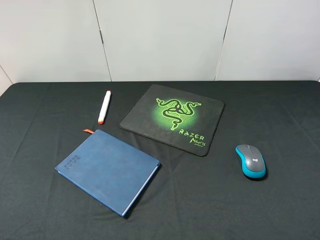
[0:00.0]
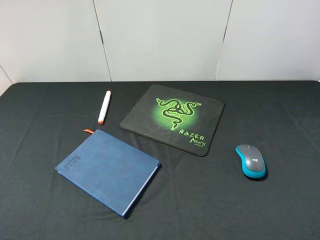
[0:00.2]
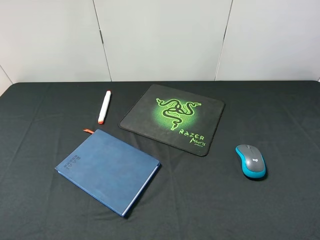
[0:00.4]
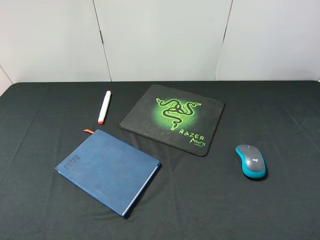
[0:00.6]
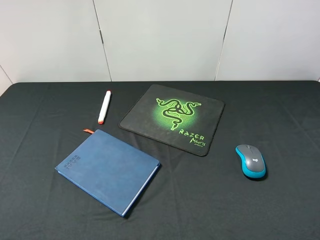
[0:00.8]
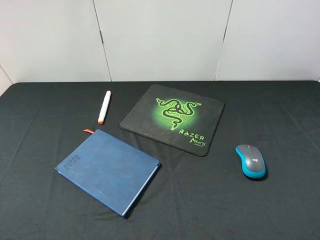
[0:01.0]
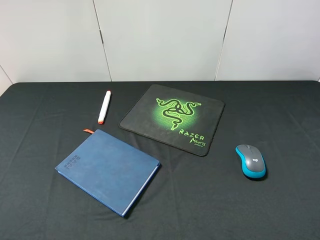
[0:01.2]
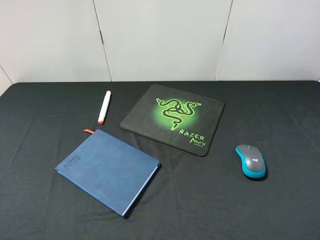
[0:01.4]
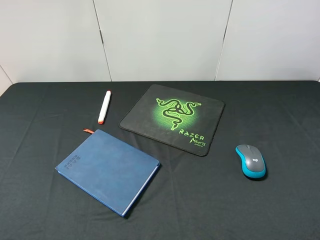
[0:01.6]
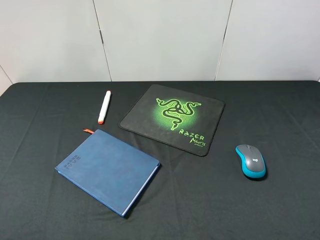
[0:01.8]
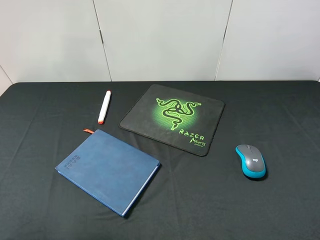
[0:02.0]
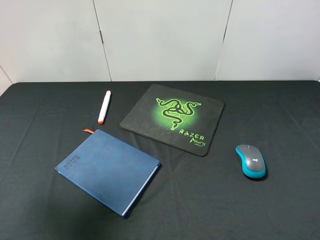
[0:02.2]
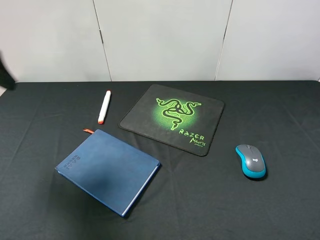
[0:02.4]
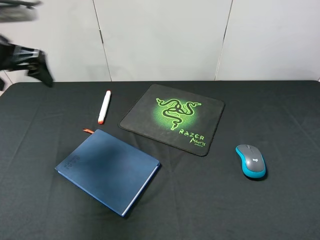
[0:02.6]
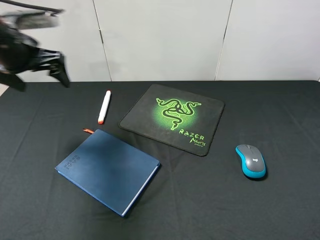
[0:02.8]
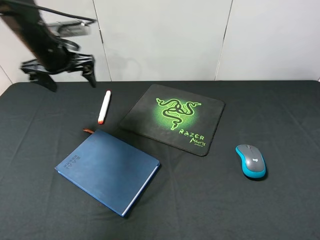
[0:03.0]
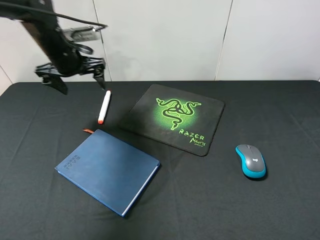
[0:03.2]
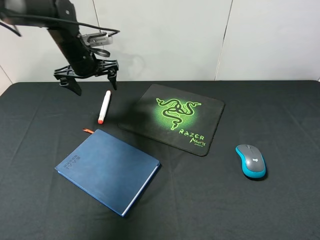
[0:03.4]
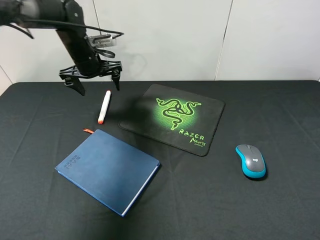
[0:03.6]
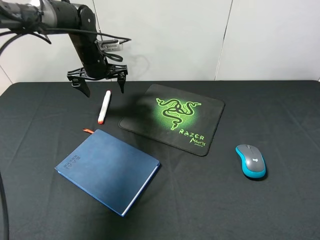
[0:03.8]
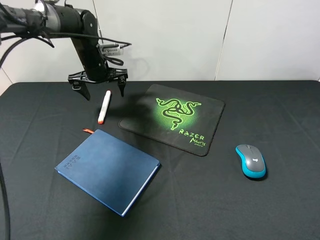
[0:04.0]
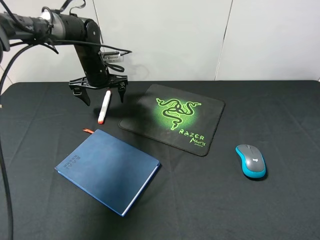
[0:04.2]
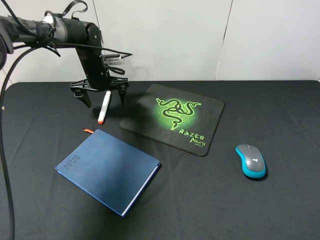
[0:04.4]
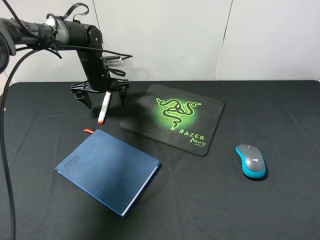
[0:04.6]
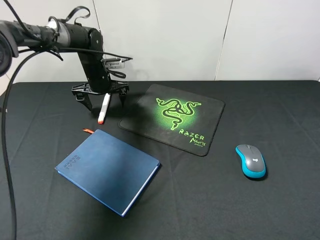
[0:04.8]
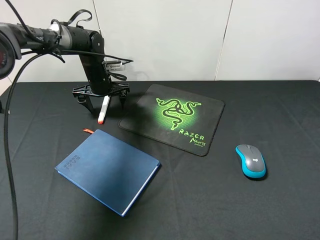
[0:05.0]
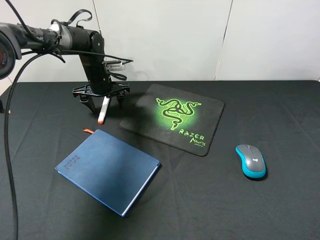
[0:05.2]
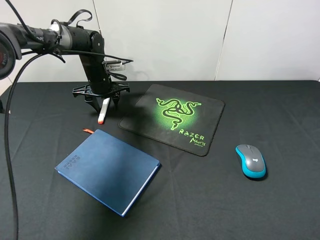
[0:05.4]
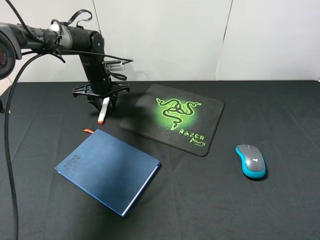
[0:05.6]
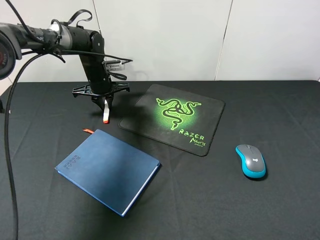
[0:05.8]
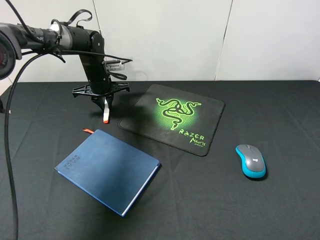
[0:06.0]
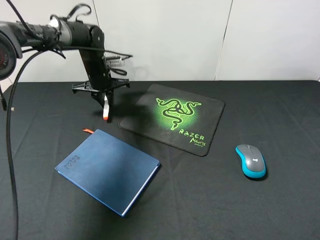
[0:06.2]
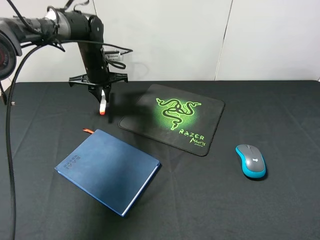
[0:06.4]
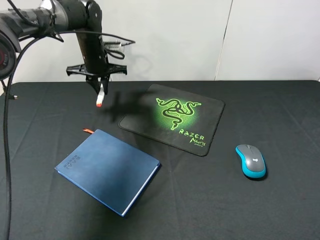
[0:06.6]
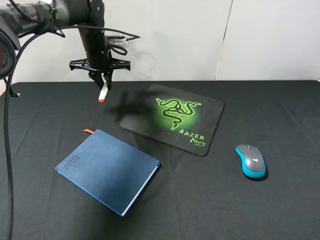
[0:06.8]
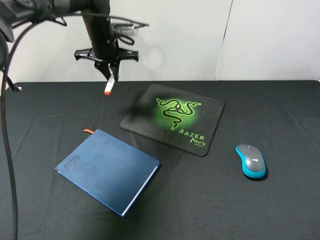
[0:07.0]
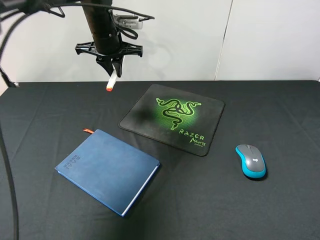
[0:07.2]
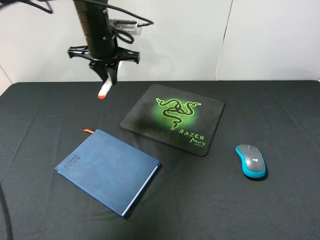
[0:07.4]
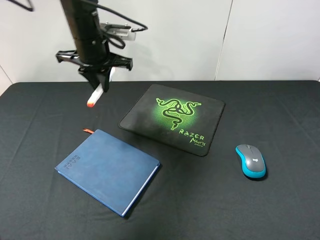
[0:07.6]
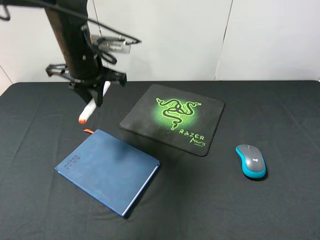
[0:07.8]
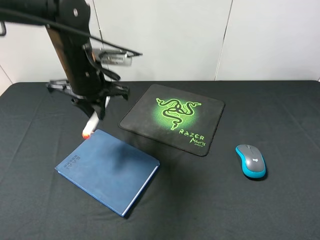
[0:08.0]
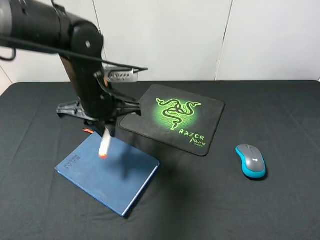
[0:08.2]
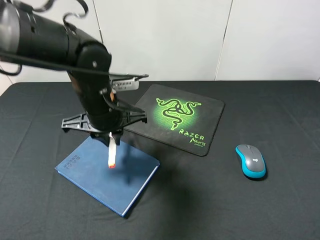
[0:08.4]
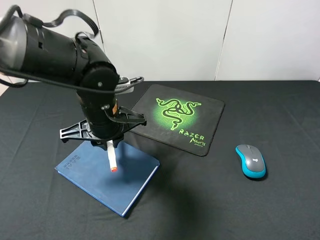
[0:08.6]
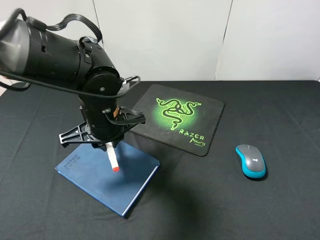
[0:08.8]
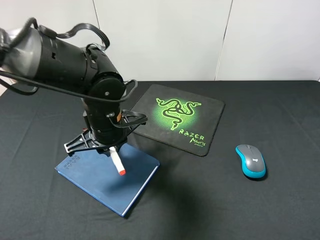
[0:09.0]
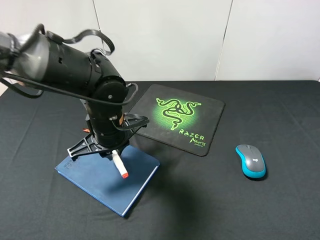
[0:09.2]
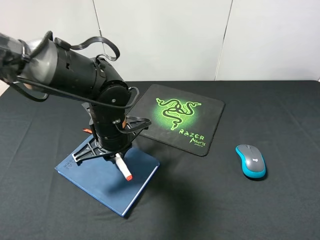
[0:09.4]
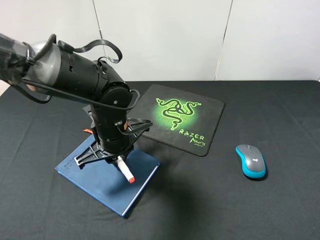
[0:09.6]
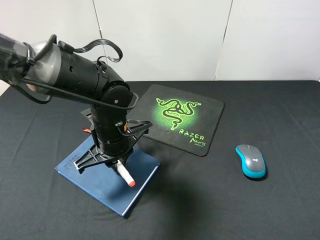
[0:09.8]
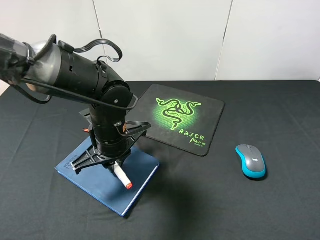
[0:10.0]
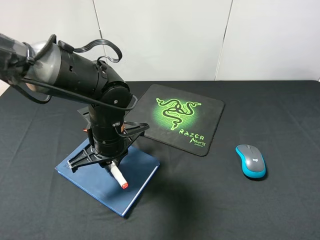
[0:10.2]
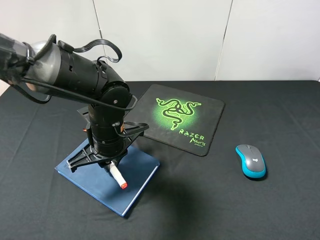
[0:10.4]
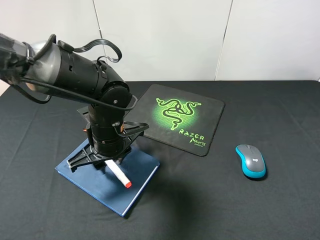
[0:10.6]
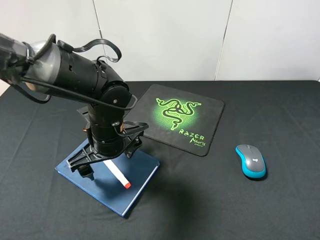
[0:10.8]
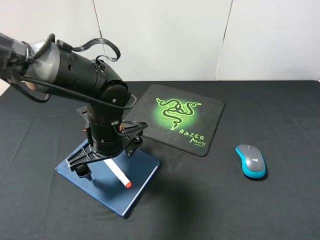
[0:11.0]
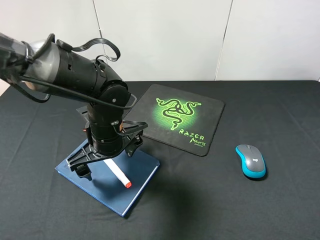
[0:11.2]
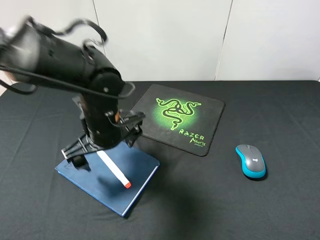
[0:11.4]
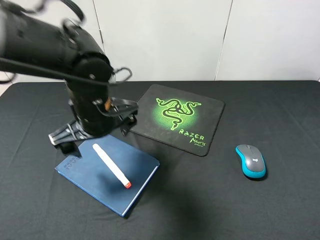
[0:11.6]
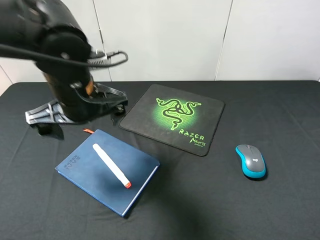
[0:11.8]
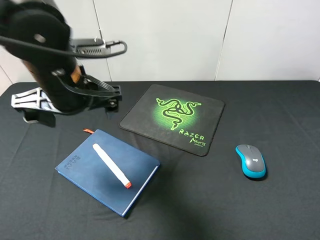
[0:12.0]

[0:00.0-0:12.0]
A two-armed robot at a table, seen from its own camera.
Step, 0:00.0 to 0:06.4: Pick up the marker pen with left gripper.
Step, 0:06.6 to 0:11.2: Place the marker pen on the notebook with left gripper.
0:01.6 to 0:03.0: The left gripper travels forward by about 40 cm.
0:03.0 to 0:04.4: The left gripper is displaced downward, forward and to the right by approximately 15 cm.
0:04.4 to 0:06.0: The left gripper closes its fingers.
0:06.0 to 0:07.6: The left gripper heads upward and backward, covering roughly 15 cm.
0:07.6 to 0:09.0: The left gripper is displaced backward, downward and to the right by roughly 15 cm.
0:09.0 to 0:10.4: The grippers move only a little.
0:10.4 to 0:12.0: The left gripper shifts some 15 cm upward, and opens up.

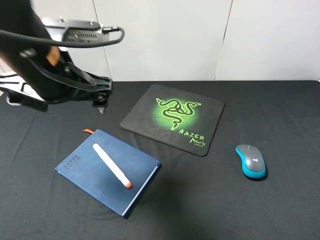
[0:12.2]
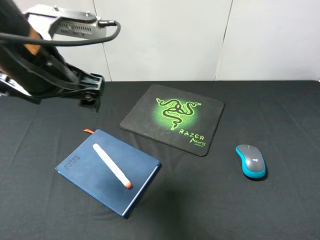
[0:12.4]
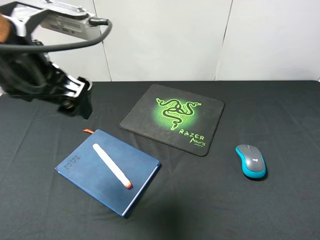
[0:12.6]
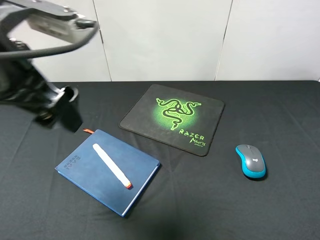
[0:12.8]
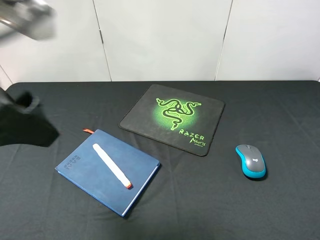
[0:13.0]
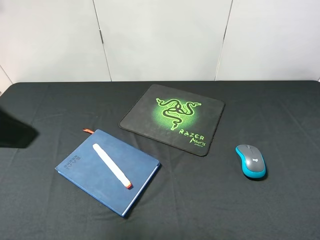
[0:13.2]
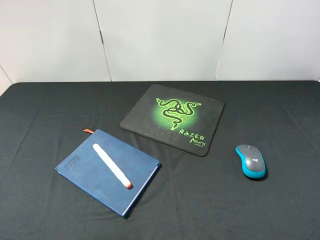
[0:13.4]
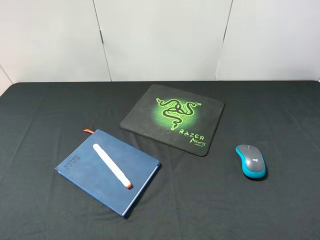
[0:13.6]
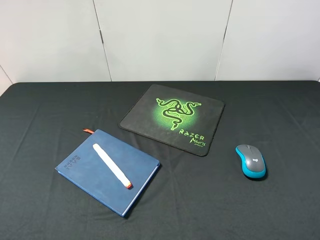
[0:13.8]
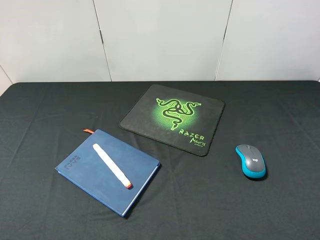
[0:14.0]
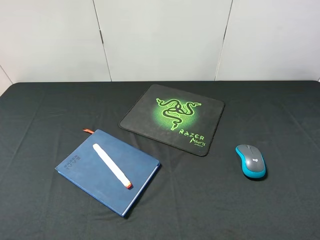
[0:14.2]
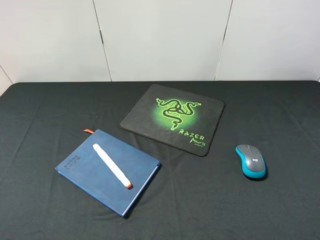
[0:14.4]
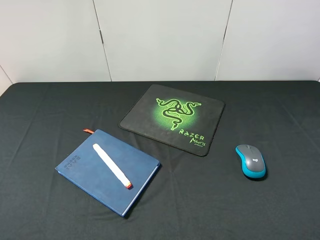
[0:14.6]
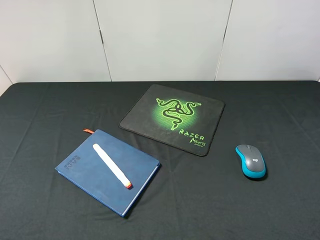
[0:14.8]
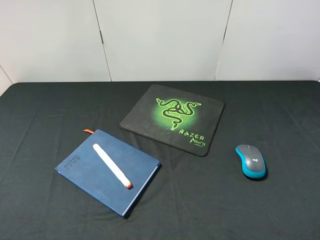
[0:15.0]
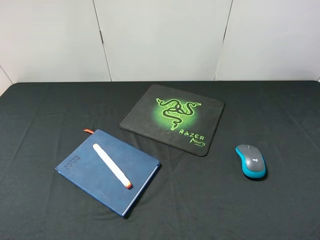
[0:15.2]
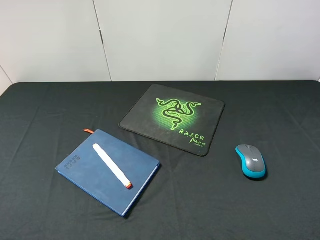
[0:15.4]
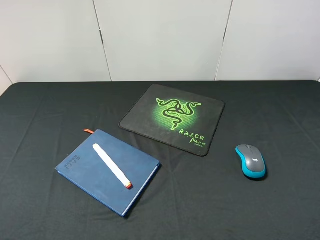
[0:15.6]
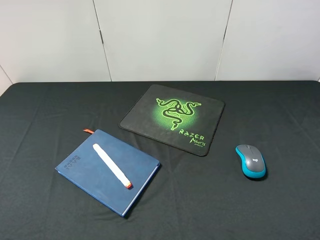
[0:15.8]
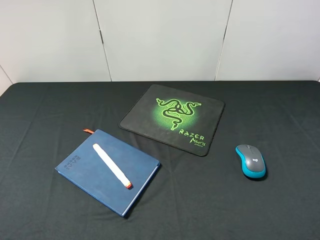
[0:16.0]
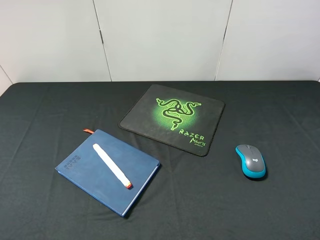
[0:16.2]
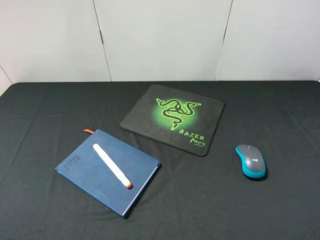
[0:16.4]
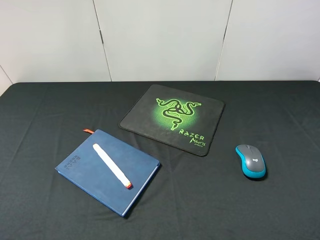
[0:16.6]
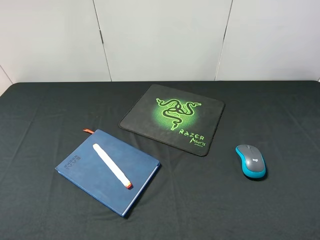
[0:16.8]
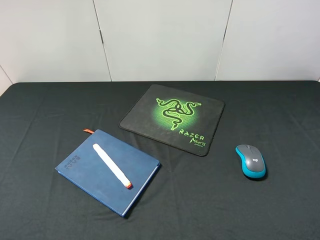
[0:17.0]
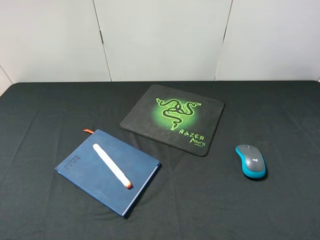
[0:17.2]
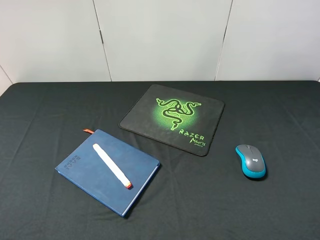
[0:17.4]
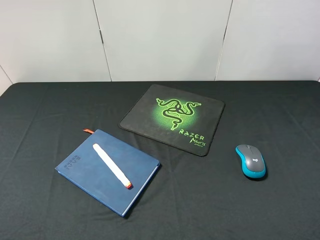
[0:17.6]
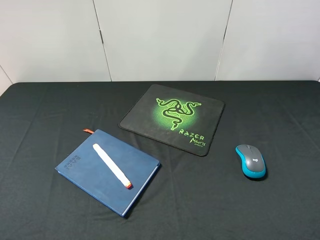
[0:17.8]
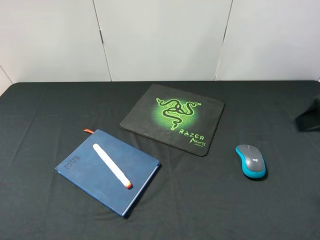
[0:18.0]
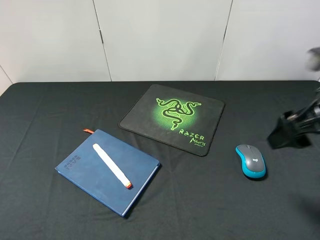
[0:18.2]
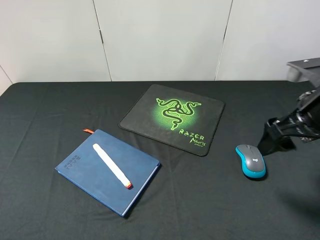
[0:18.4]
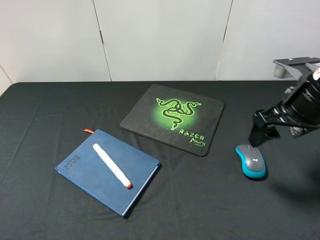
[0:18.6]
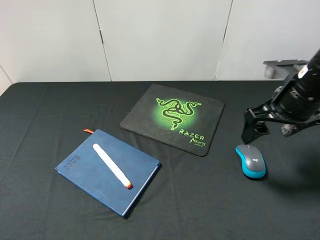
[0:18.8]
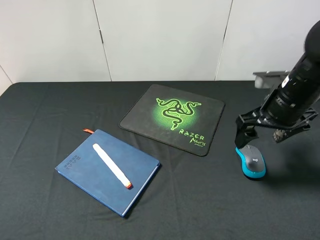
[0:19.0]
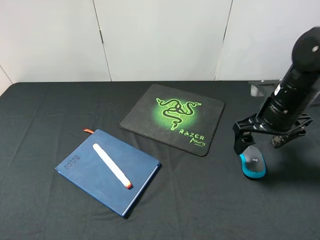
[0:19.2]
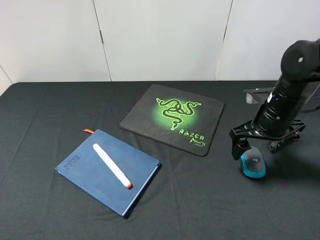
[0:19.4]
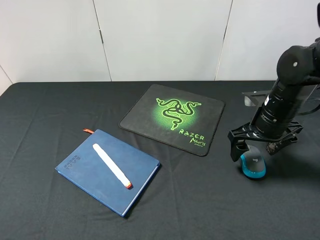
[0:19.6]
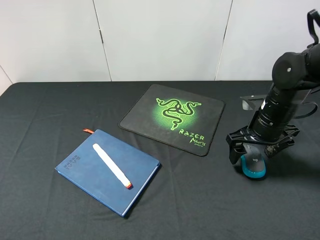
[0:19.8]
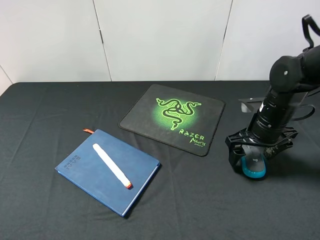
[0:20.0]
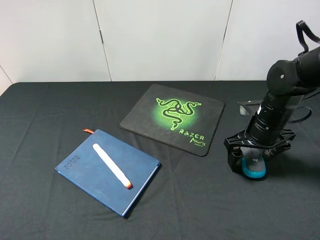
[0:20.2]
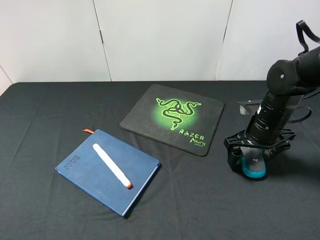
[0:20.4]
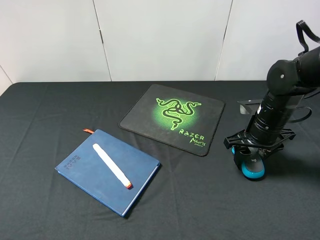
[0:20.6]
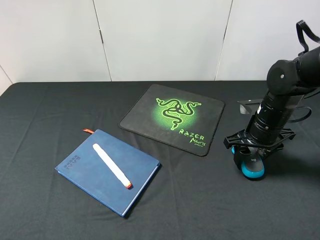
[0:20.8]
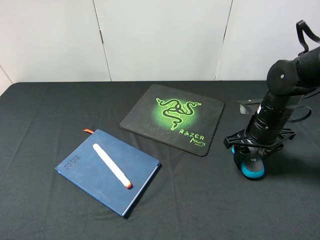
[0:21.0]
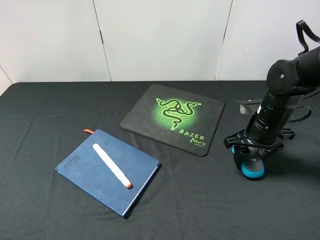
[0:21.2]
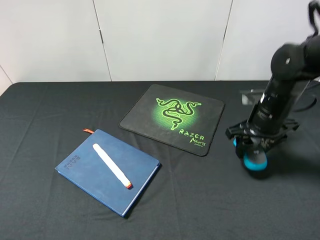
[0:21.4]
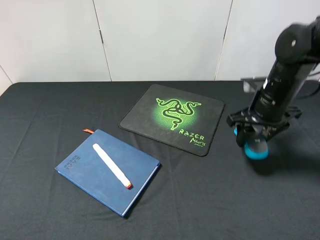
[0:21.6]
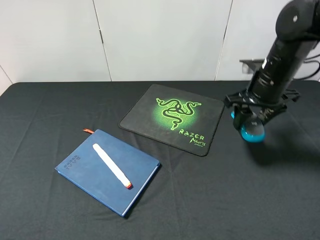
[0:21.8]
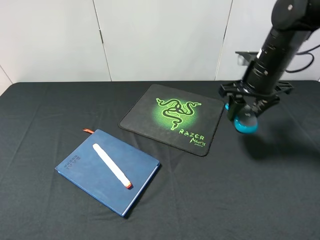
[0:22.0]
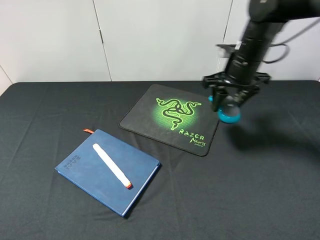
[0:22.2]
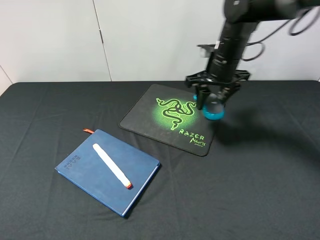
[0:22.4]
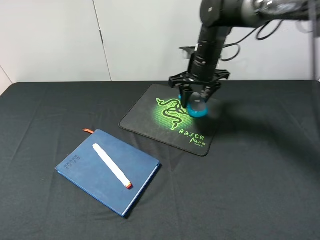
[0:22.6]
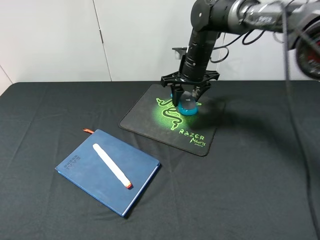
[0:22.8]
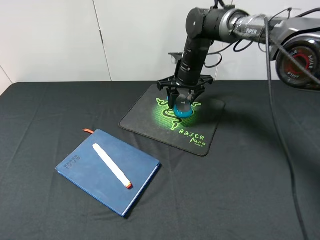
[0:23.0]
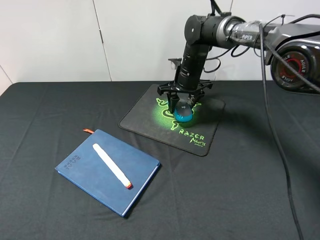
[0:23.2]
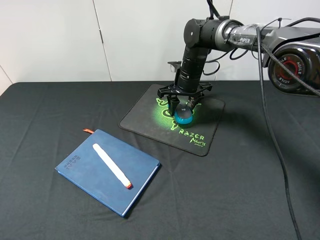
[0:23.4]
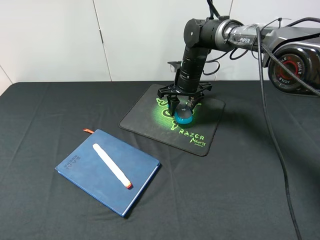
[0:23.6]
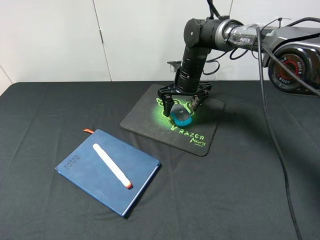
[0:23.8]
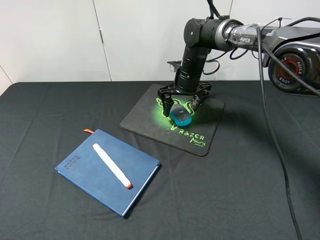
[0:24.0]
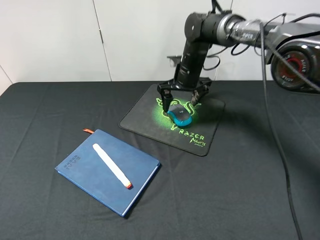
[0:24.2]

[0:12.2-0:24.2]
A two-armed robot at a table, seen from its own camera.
Step, 0:12.2 to 0:21.6: Pick up the mouse with right gripper.
0:12.2 to 0:13.8: The left gripper moves backward and to the left, roughly 25 cm.
0:15.2 to 0:16.6: Neither gripper changes place.
0:16.6 to 0:18.2: The right gripper is displaced forward by approximately 20 cm.
0:18.2 to 0:19.8: The right gripper moves downward and forward, approximately 15 cm.
0:19.8 to 0:21.2: The right gripper closes its fingers.
0:21.2 to 0:22.6: The right gripper travels forward, to the left and upward by roughly 20 cm.
0:22.6 to 0:24.2: The right gripper opens up.
